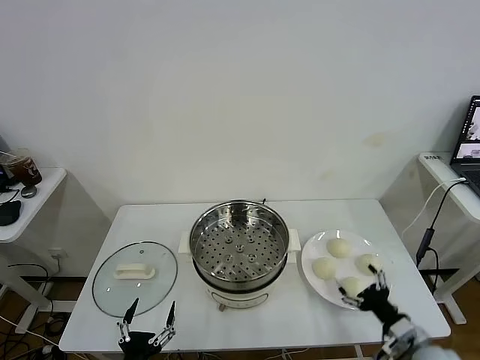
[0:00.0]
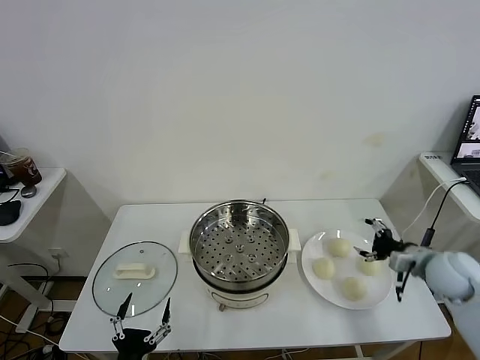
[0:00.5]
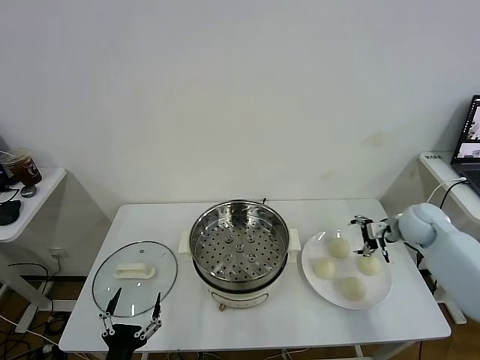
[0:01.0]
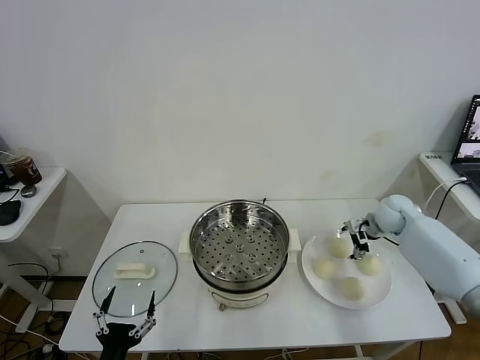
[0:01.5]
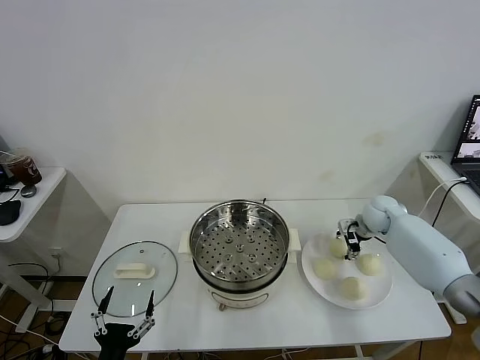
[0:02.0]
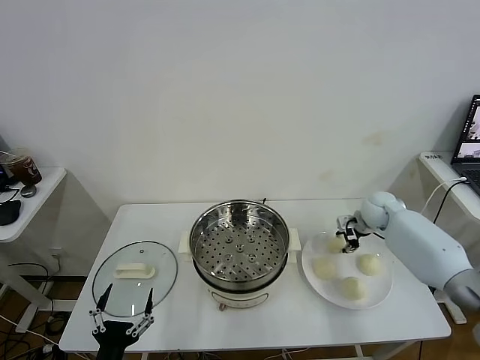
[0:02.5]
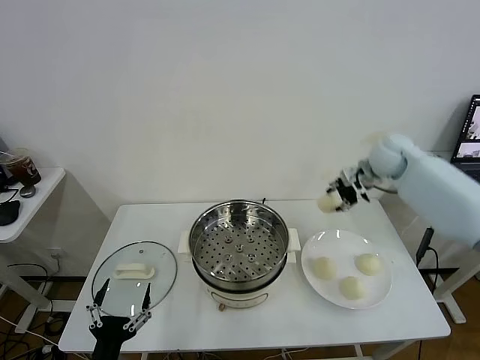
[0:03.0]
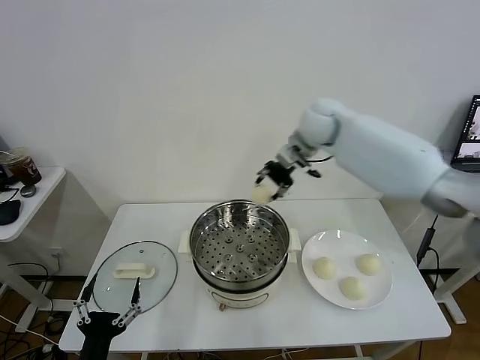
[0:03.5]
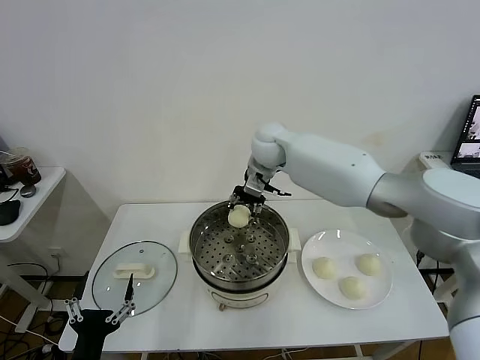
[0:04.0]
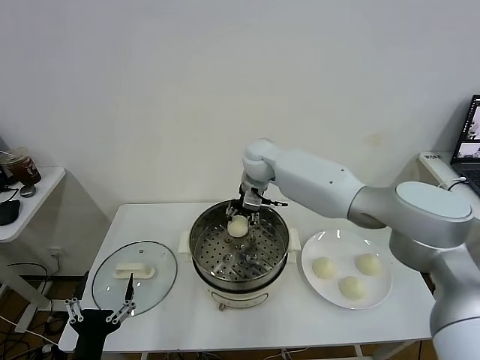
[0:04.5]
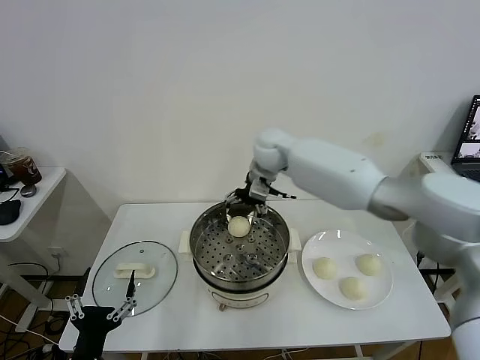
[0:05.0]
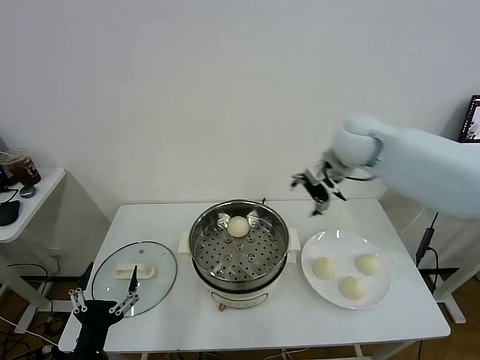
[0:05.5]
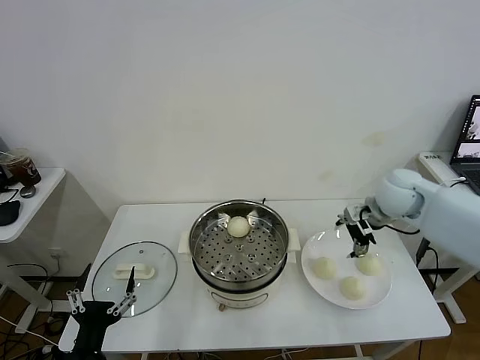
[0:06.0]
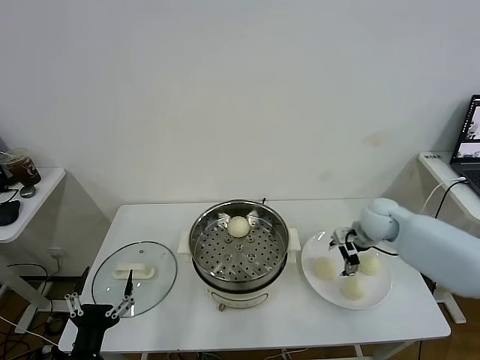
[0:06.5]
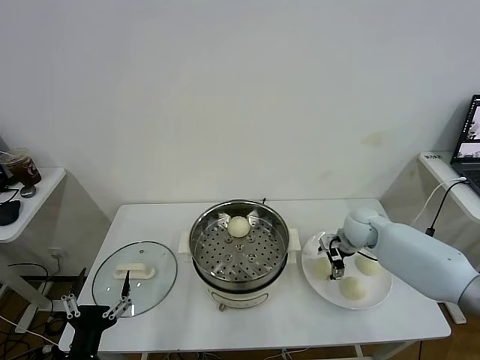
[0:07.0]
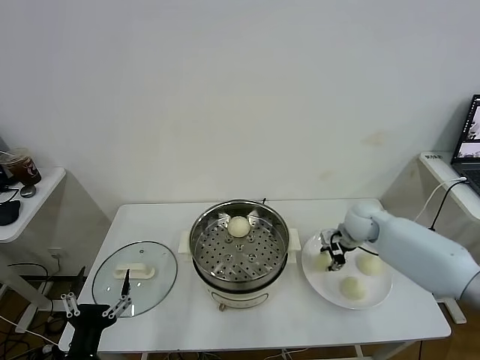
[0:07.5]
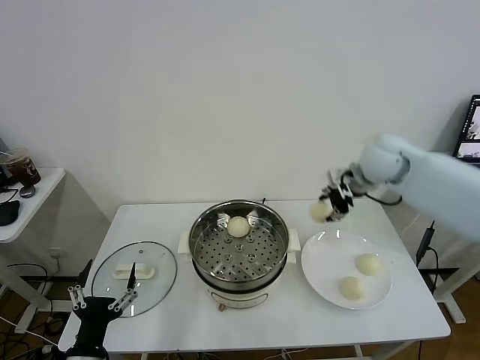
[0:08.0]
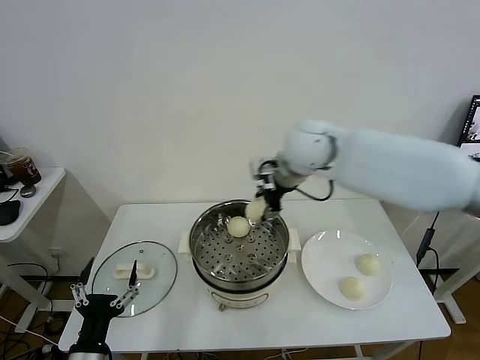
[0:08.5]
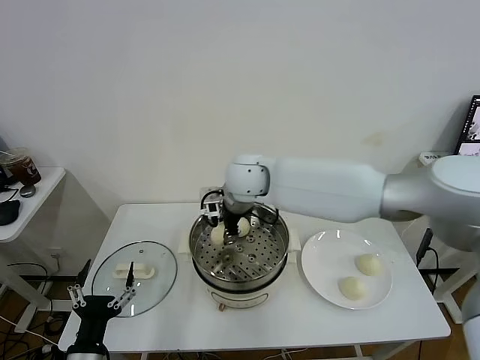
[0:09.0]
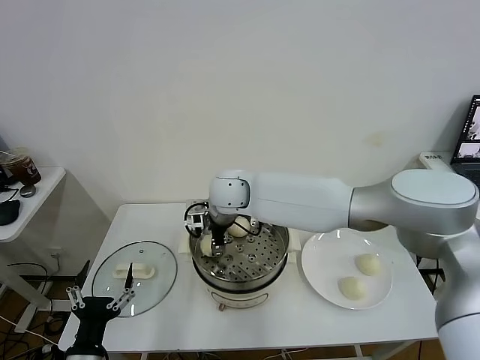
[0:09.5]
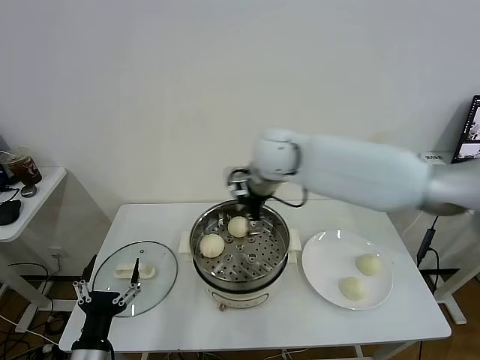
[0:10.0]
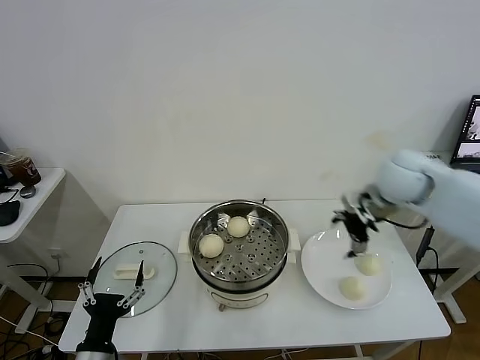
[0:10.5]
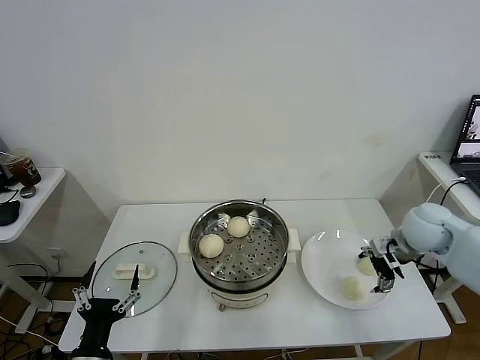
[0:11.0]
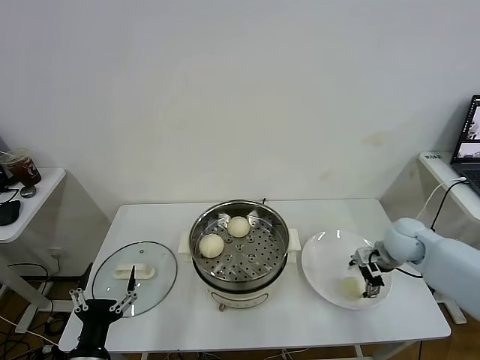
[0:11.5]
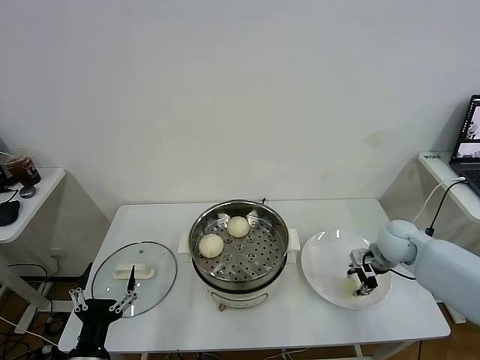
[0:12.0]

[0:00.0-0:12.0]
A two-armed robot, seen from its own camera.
Task of the whole recording: take steamed baozi put them in steamer.
Step, 0:00.0 to 0:02.0: Grasp the baozi in the plate with right gripper.
Step, 0:02.5 to 0:04.5: Place the baozi on the steamer with right gripper.
Step, 0:05.0 to 0:07.0: Grasp the baozi in the plate with right gripper.
Step, 0:07.5 to 0:09.5: Place the baozi on the steamer with right gripper.
0:02.0 to 0:04.0: The right gripper shifts about 35 cm to the left and upward.
0:04.0 to 0:06.0: The right gripper moves to the right and backward, roughly 30 cm, and opens.
0:06.0 to 0:08.0: The right gripper travels upward and to the left by roughly 10 cm, and closes its fingers.
0:08.0 to 0:10.0: The right gripper moves to the left, approximately 20 cm, and opens up.
0:10.0 to 0:12.0: The right gripper heads to the right and downward, covering about 35 cm, and closes its fingers.

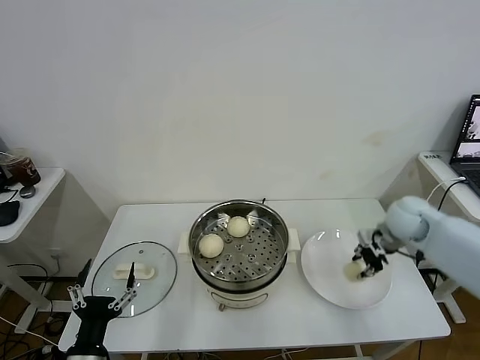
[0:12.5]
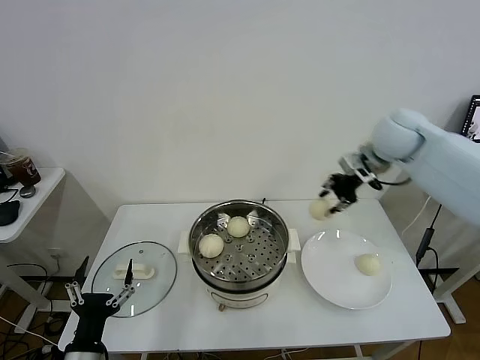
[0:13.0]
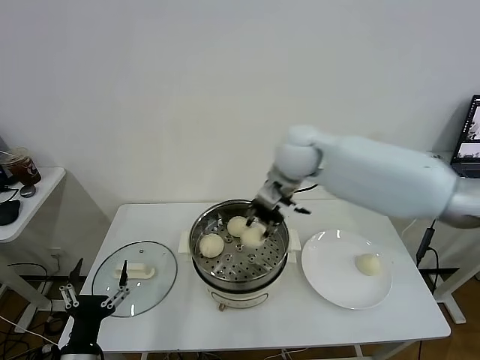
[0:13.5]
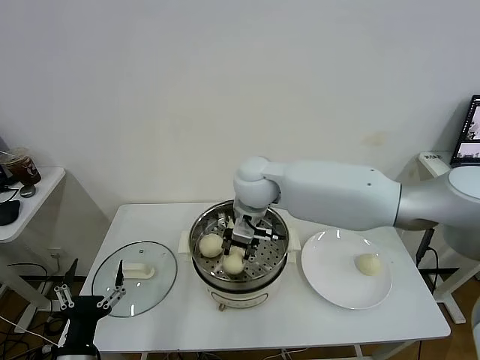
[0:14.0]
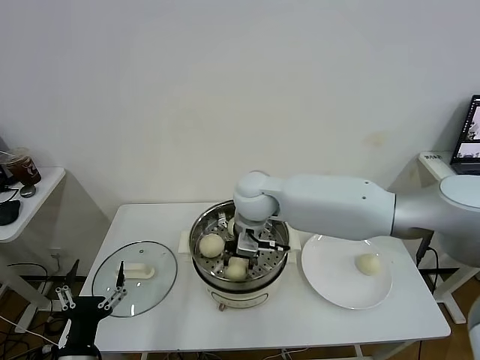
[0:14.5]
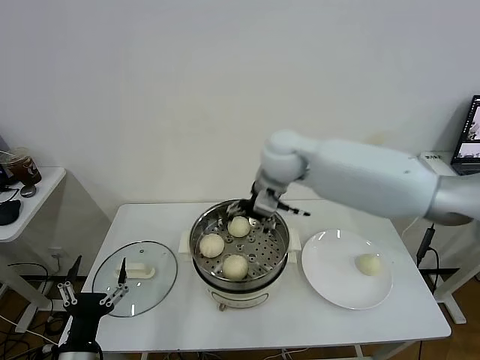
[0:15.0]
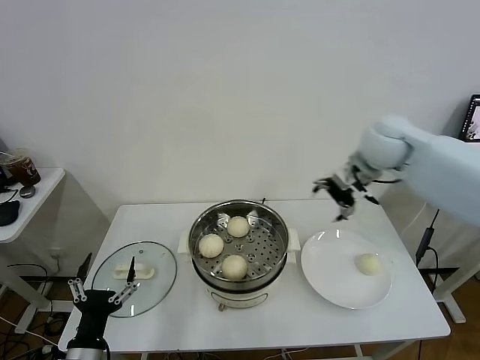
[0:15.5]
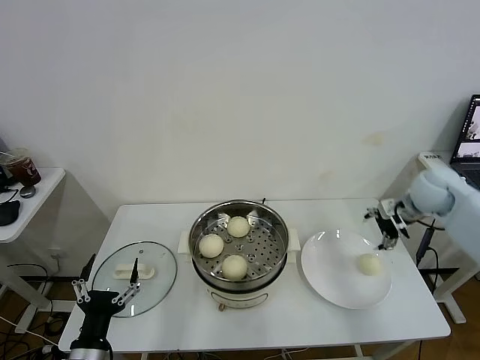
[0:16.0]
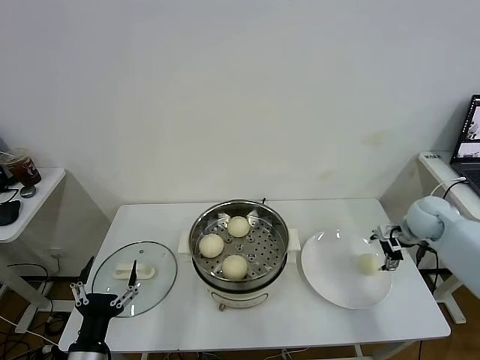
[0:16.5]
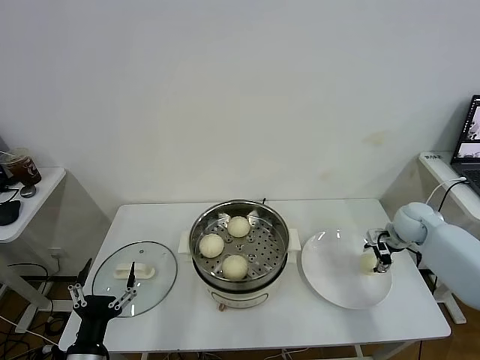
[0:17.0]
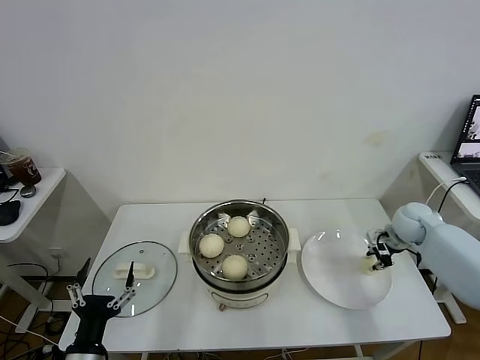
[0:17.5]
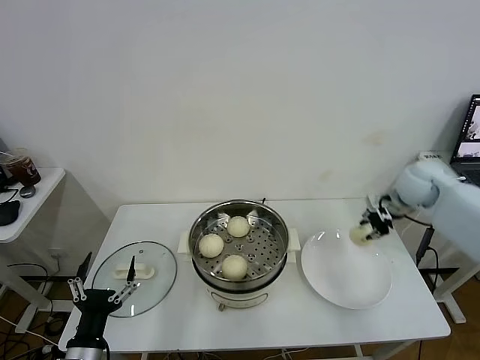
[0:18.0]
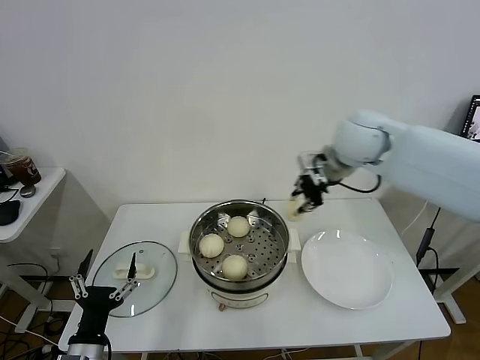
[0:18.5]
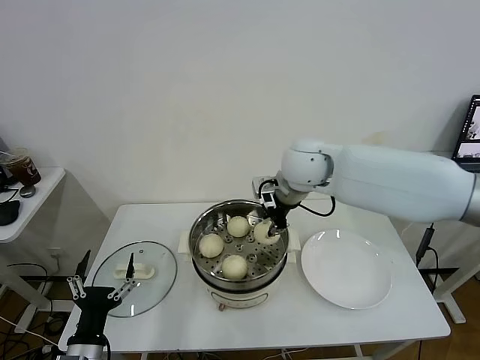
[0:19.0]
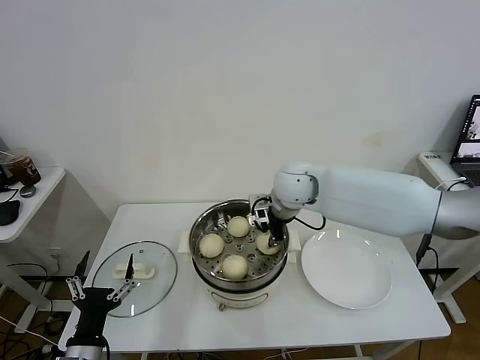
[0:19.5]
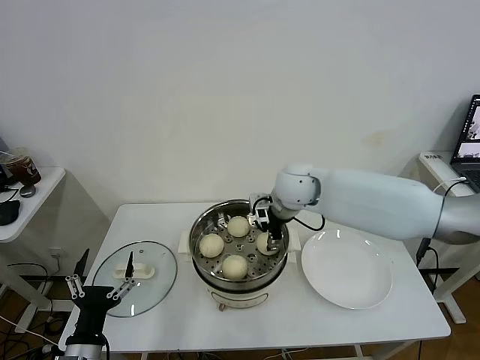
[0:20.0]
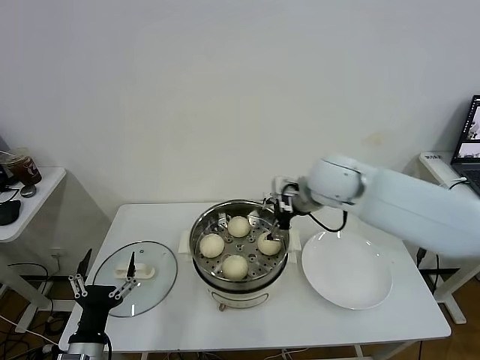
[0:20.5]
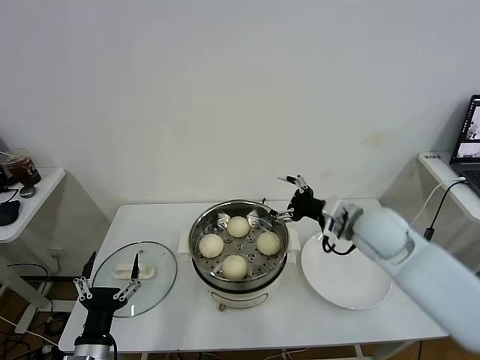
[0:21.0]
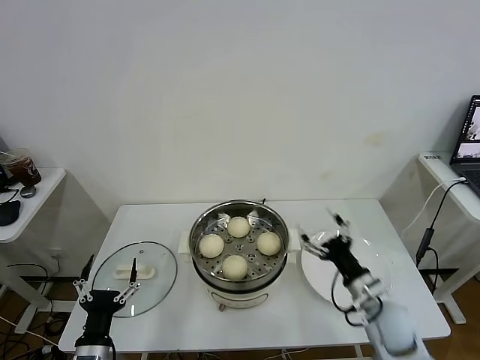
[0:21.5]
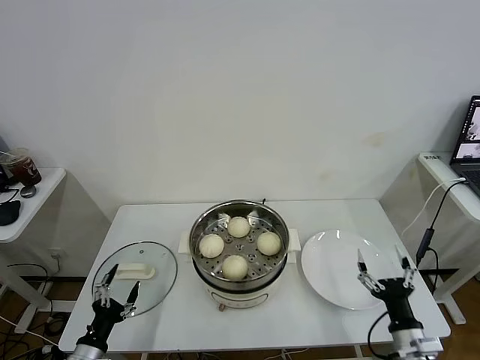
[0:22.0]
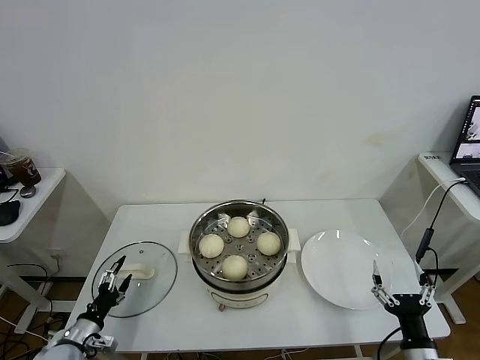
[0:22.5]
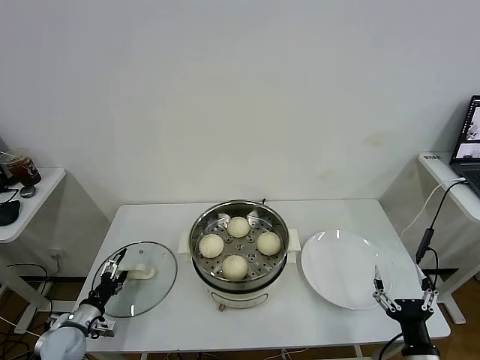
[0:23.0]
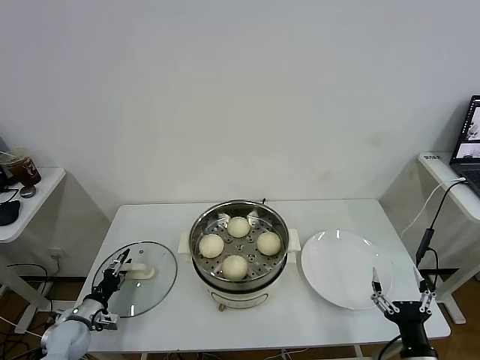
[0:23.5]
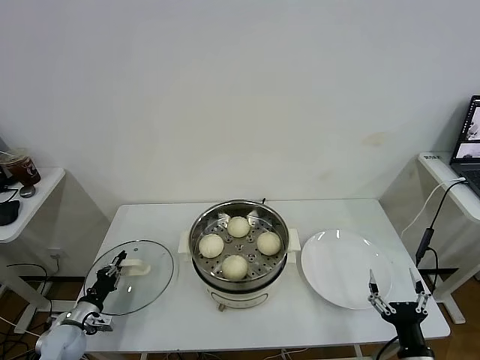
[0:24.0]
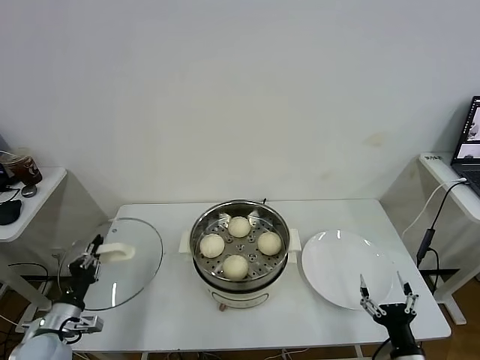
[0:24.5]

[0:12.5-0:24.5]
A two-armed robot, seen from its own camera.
Task of the whole recording: take steamed baozi put them in steamer.
Step, 0:12.5 to 0:14.5: Place the baozi on the steamer with right gripper.
Step, 0:15.0 to 0:17.0: Grasp the baozi in the plate with right gripper.
Step, 0:17.5 to 0:20.0: Place the baozi on the steamer with right gripper.
Step, 0:20.5 to 0:24.0: Grasp the pot lid with left gripper.
0:12.5 to 0:14.5: The right gripper moves to the left, about 35 cm.
0:14.5 to 0:16.5: The right gripper moves to the right, roughly 40 cm, and opens its fingers.
0:16.5 to 0:18.5: The right gripper travels to the left and upward by approximately 30 cm, and closes its fingers.
0:18.5 to 0:20.5: The right gripper heads downward, covering some 5 cm, and opens up.
0:20.5 to 0:22.5: The right gripper moves backward, downward and to the right, some 50 cm, while the left gripper travels to the left, downward and forward by about 15 cm.
0:22.5 to 0:24.5: The left gripper moves upward, roughly 5 cm, and closes up.

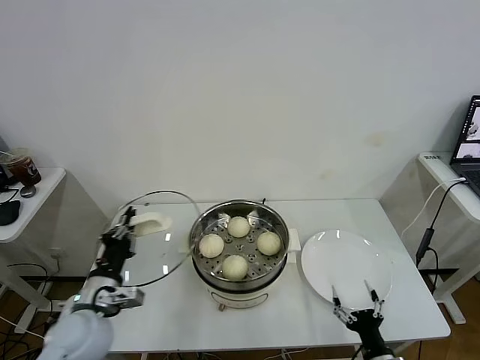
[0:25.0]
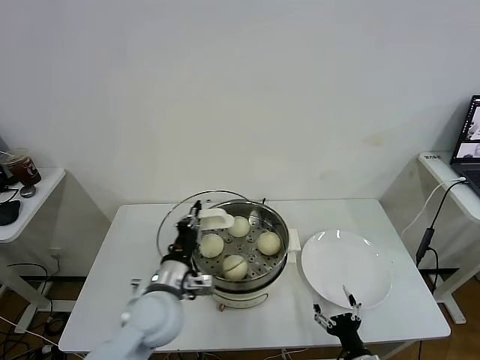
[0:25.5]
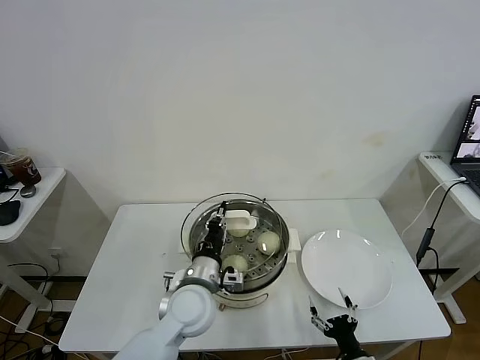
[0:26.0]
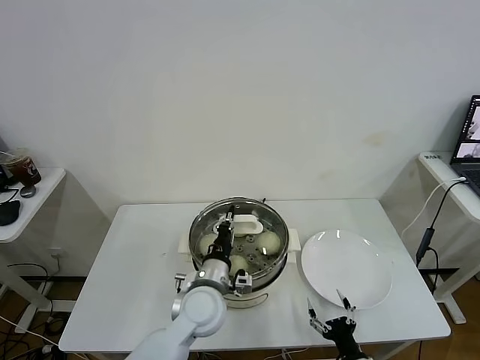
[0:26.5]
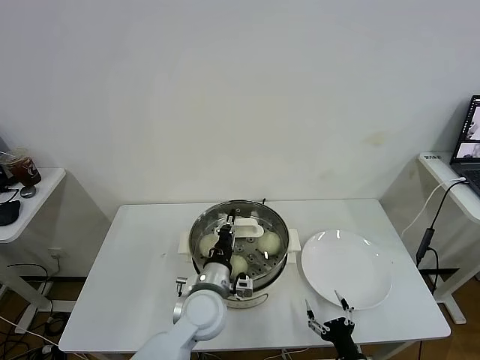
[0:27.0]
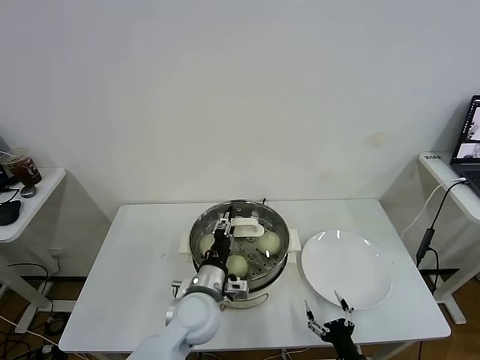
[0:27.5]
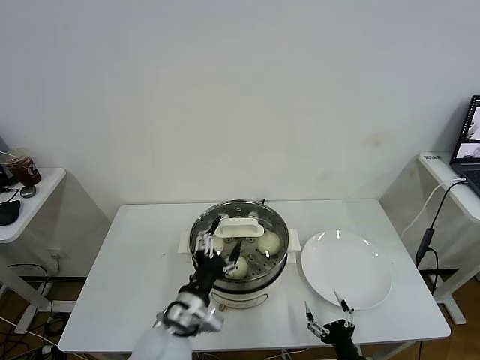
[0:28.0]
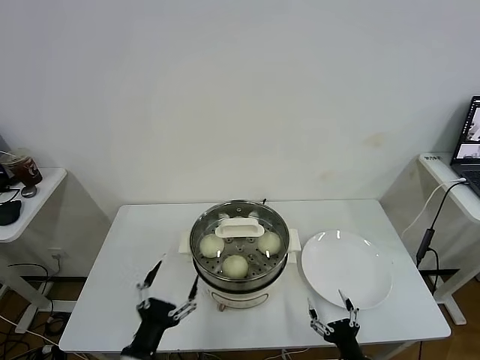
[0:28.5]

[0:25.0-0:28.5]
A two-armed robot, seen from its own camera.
Task of the whole recording: take steamed baozi put them in steamer.
Step, 0:25.0 to 0:28.0: Place the pot lid on the steamer with left gripper.
0:25.0 to 0:27.0: The right gripper moves some 5 cm; the left gripper moves to the right, roughly 20 cm.
0:27.0 to 0:28.5: The left gripper goes roughly 20 cm backward and to the left, and opens its fingers.
